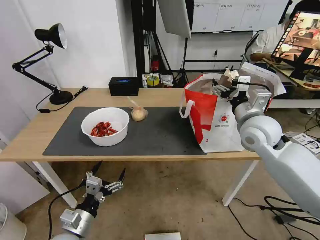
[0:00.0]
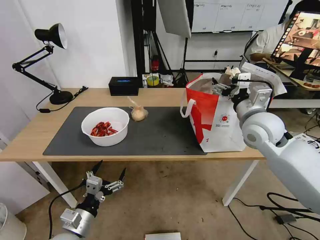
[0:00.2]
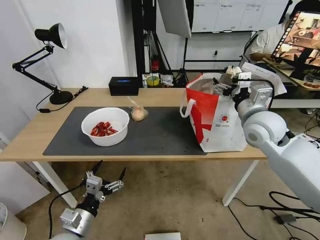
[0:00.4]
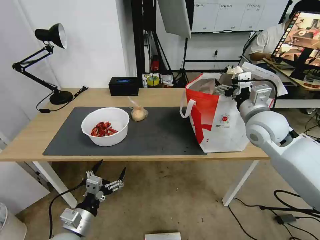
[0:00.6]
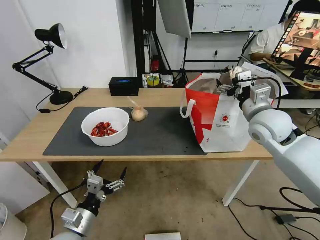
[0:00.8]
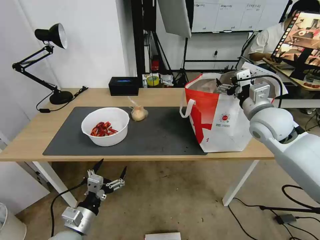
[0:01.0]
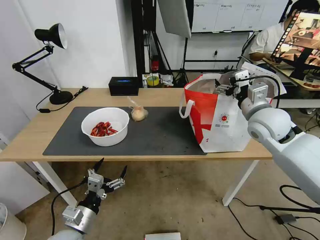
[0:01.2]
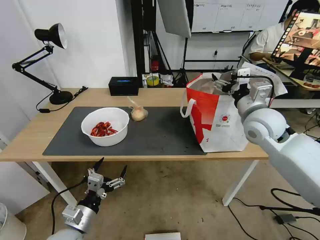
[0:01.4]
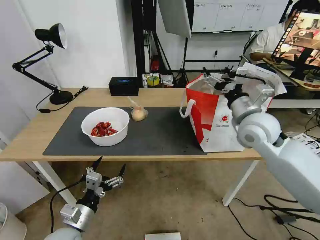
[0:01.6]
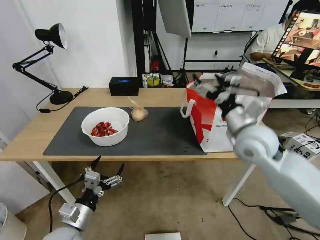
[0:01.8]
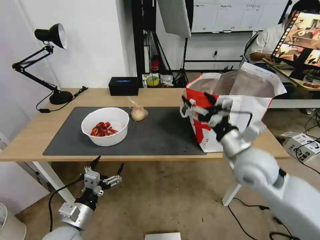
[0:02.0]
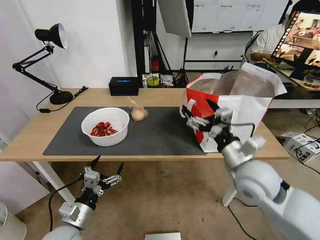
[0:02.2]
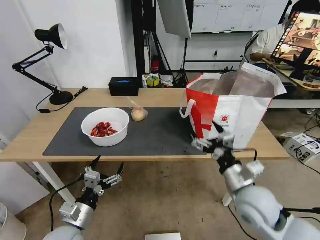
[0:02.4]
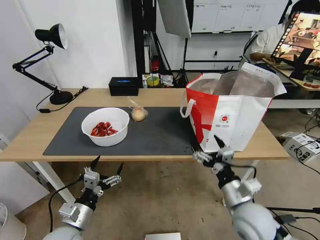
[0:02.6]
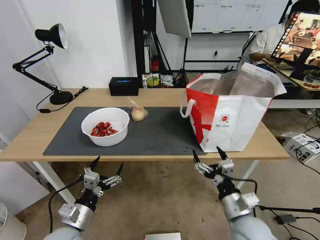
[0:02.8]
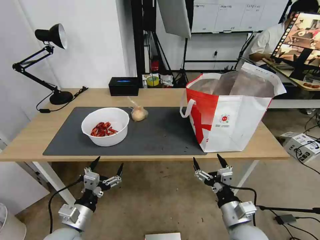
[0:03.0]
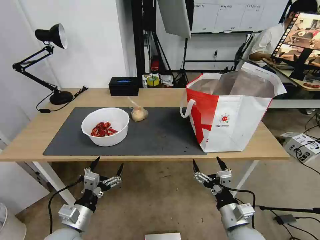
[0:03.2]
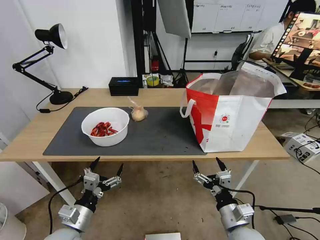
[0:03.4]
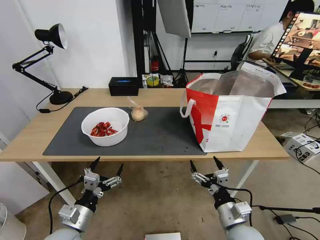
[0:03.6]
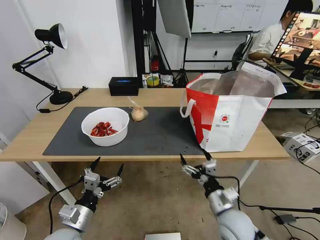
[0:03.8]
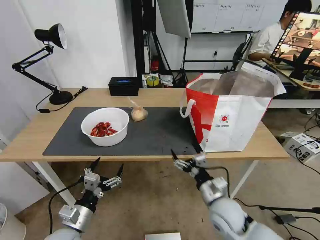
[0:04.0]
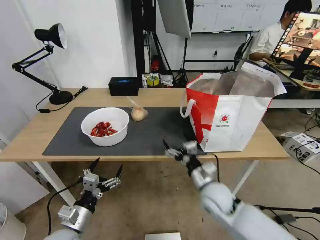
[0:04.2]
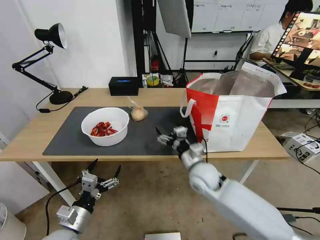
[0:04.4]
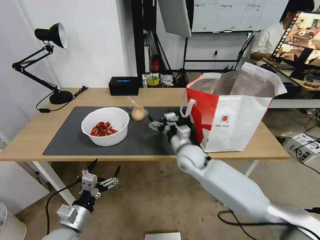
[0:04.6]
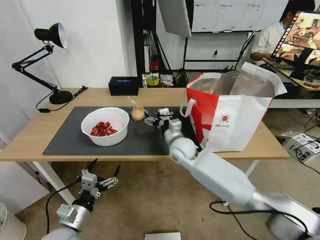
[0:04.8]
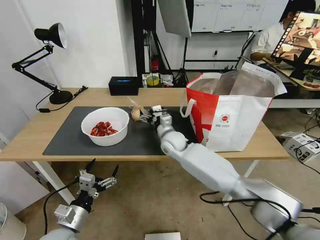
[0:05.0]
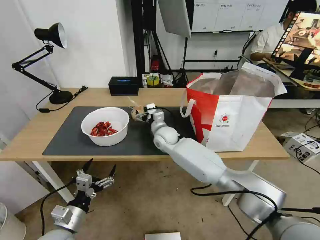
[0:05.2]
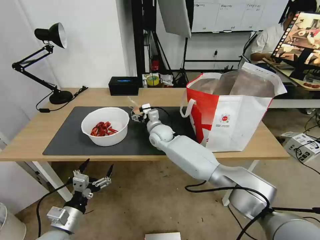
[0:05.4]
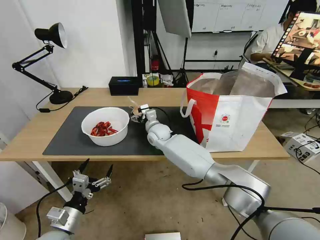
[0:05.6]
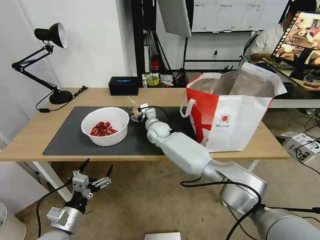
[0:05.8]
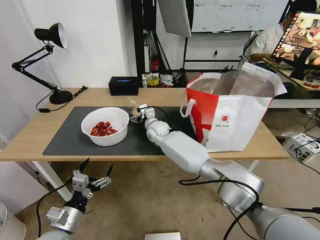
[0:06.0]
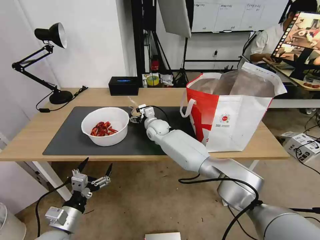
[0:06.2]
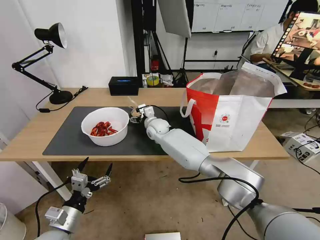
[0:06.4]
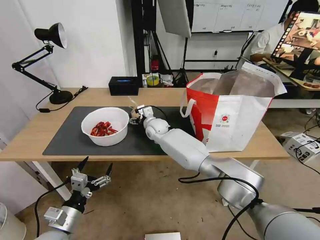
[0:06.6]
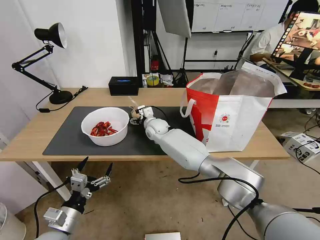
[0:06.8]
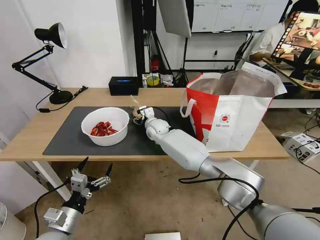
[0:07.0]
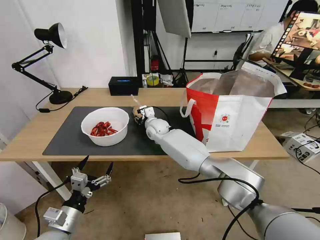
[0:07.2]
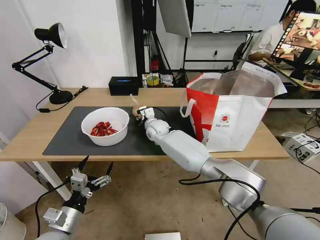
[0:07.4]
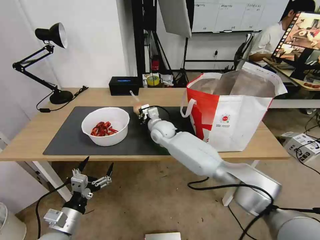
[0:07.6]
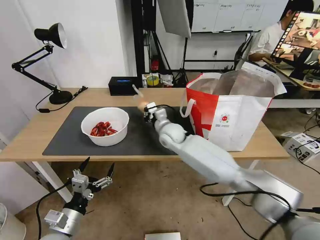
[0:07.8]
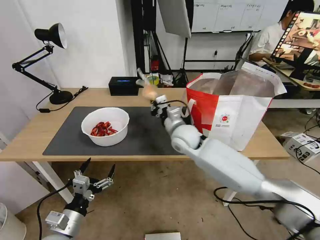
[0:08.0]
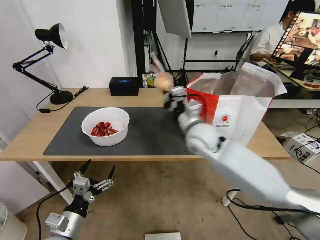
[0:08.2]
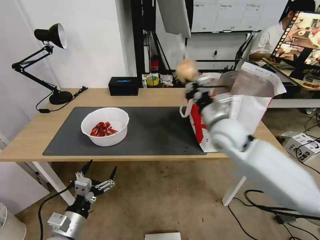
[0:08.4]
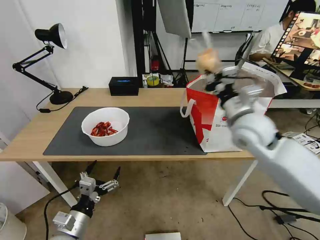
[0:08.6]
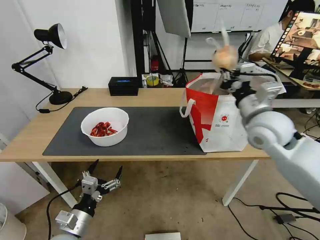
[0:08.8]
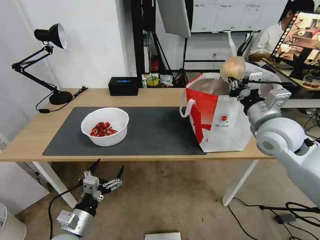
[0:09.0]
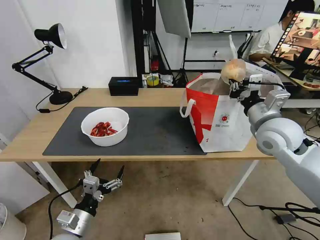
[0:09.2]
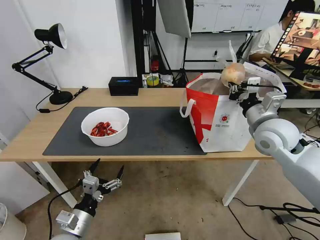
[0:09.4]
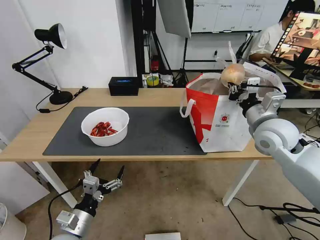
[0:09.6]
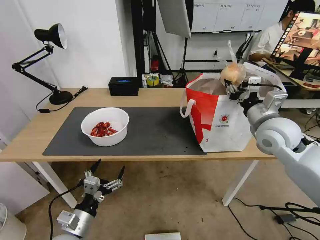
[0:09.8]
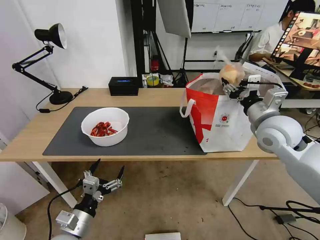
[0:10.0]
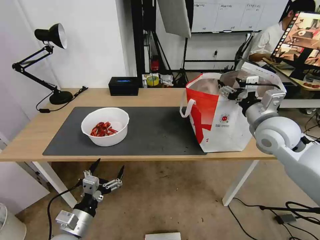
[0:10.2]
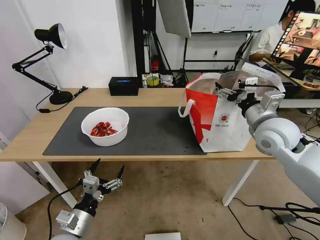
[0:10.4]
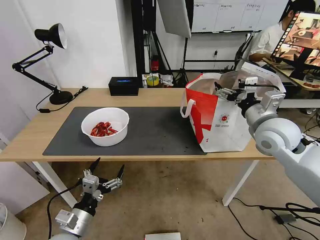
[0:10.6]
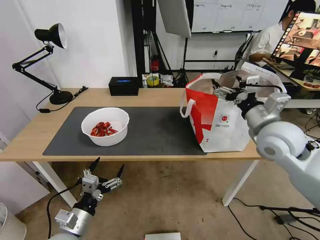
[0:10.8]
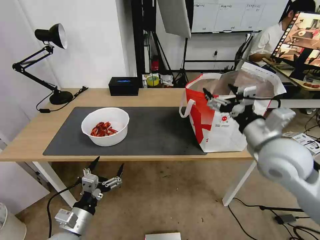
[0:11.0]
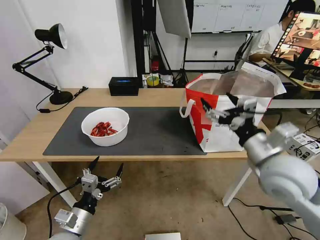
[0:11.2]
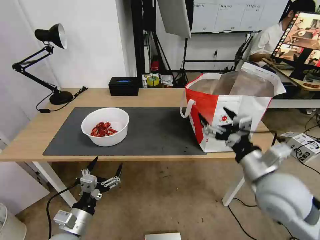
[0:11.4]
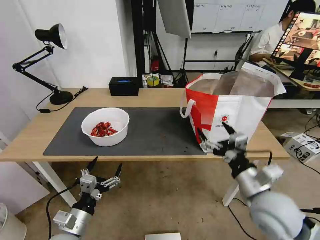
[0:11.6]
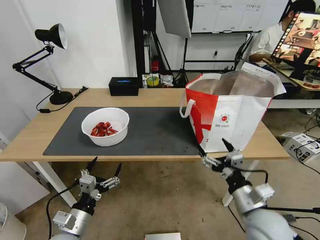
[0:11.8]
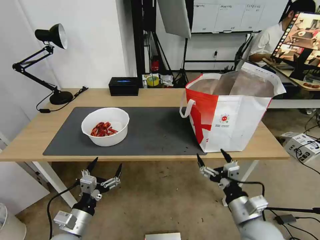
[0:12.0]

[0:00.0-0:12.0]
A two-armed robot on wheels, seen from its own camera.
Task of the whole recording: Pick up the trash from the table and place it into the takeout bag.
0:01.6 to 0:03.0: The right gripper heads backward and downward, covering approximately 30 cm.
0:03.0 to 0:04.4: The right gripper heads forward and to the left, covering approximately 20 cm.
0:04.4 to 0:06.0: The right gripper heads forward and to the left, covering approximately 25 cm.
0:06.0 to 0:07.6: The right gripper closes its fingers.
0:07.6 to 0:09.0: The right gripper heads to the right, backward and upward, covering some 35 cm.
0:09.0 to 0:10.4: The right gripper opens.
0:10.4 to 0:12.0: The right gripper moves backward and downward, approximately 25 cm.

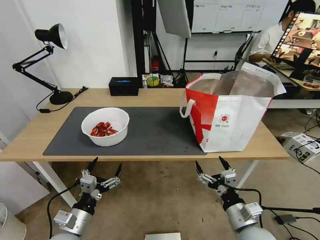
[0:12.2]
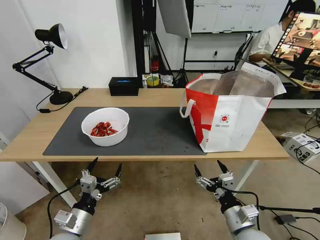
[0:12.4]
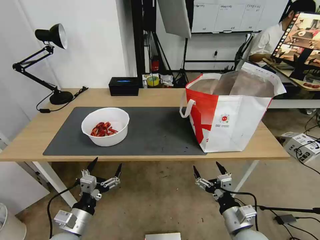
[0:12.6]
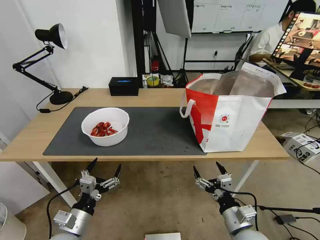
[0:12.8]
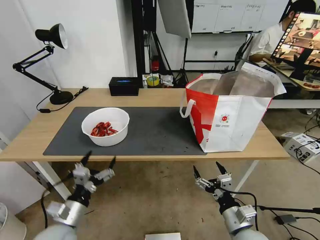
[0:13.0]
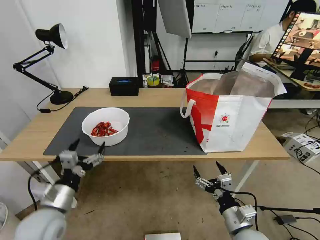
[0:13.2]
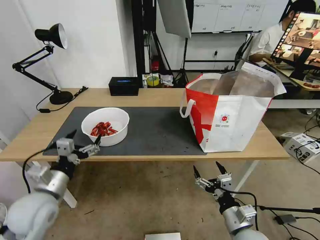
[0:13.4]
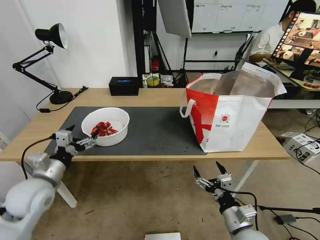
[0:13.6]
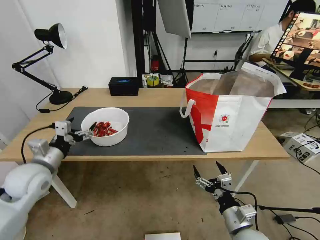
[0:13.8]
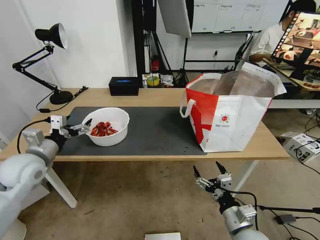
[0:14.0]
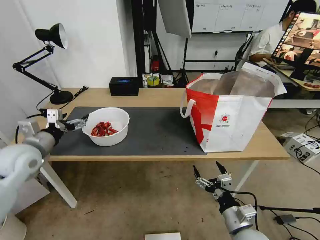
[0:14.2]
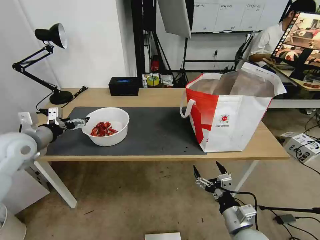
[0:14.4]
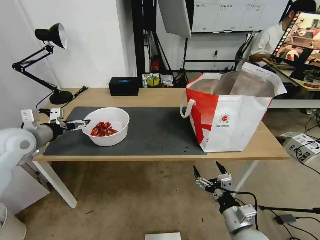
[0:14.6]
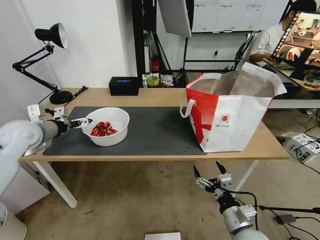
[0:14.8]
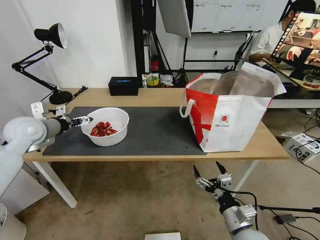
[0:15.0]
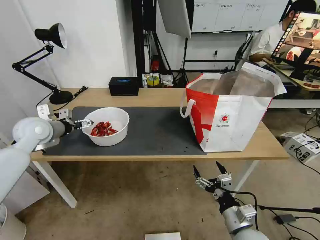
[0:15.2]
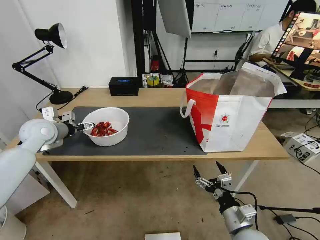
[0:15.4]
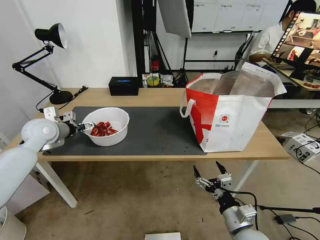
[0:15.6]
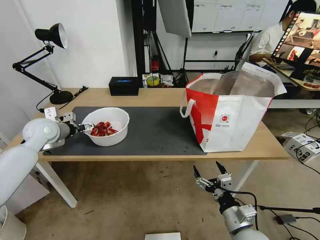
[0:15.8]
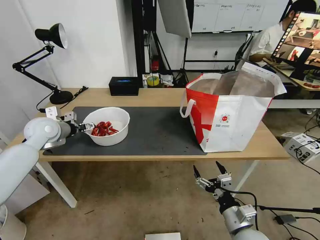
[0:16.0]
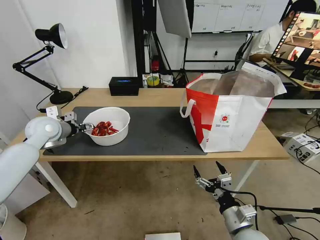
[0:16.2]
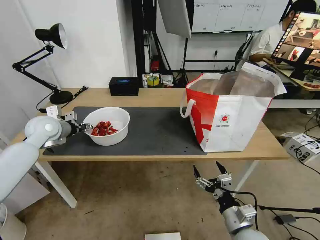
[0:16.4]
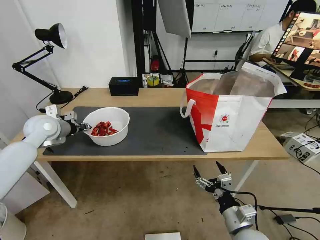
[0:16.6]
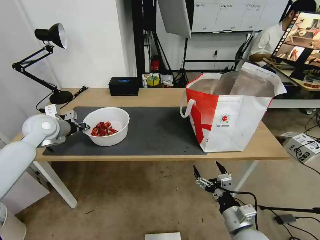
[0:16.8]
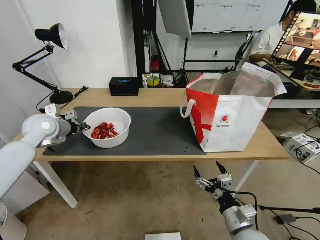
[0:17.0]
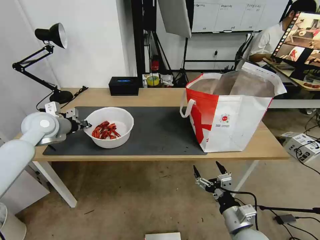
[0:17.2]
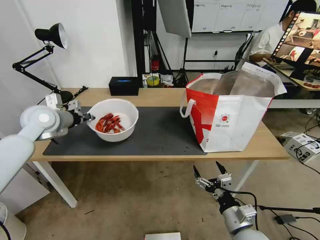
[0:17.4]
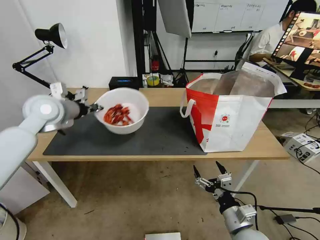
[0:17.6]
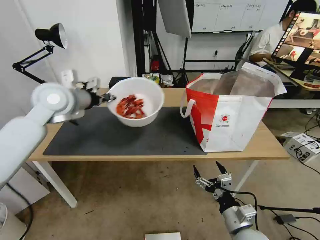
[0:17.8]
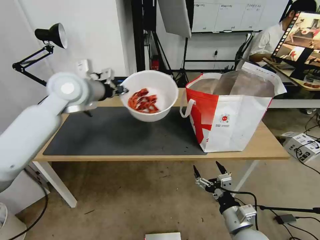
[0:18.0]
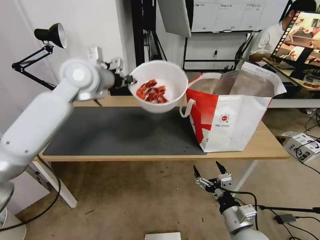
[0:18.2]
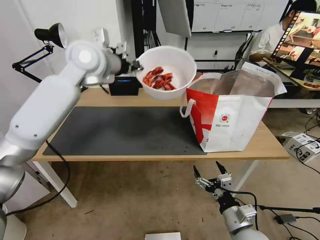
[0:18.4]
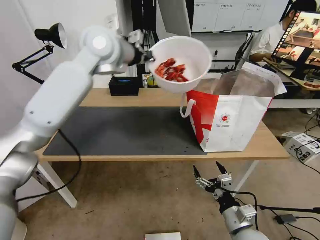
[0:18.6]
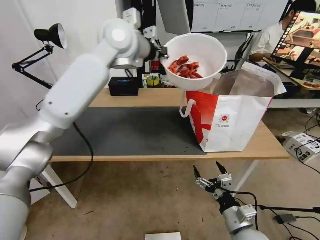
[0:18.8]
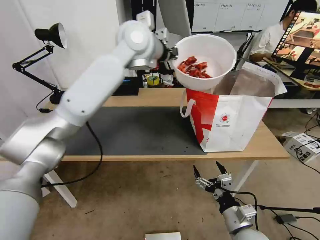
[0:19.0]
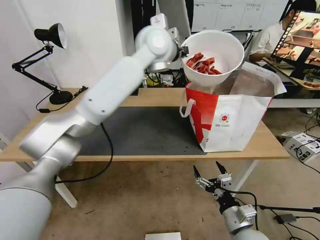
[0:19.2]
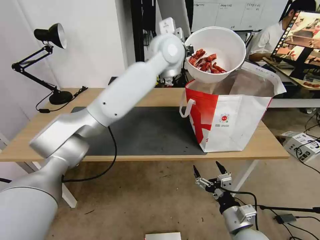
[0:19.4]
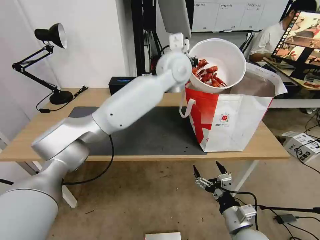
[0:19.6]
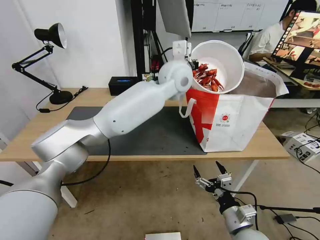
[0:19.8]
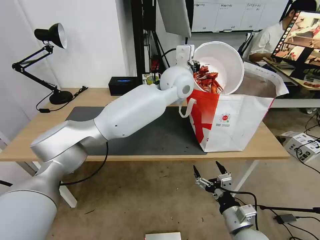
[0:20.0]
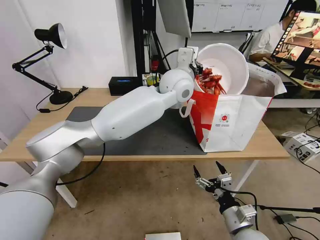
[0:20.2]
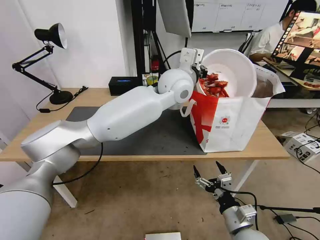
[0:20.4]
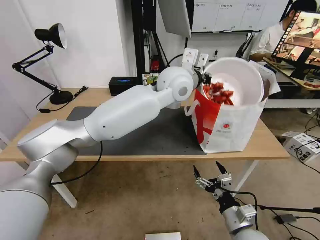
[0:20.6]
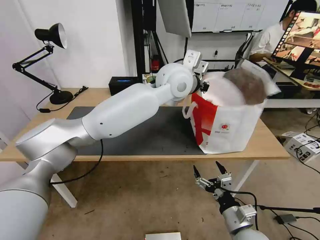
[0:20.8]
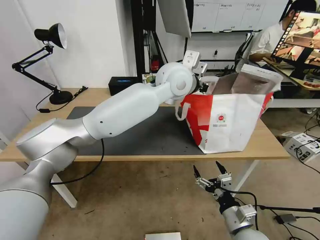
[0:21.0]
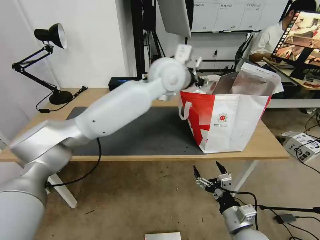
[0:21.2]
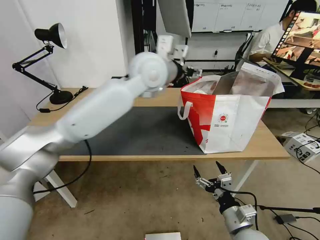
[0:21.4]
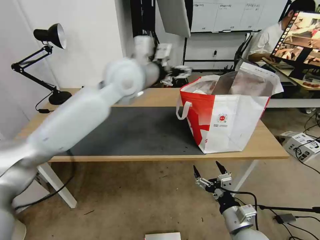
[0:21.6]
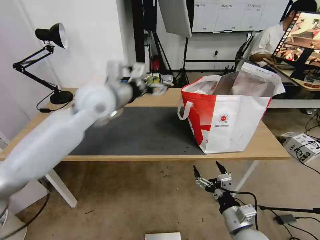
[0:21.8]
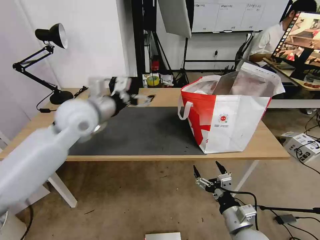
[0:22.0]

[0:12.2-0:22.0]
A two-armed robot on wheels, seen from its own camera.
Task of the whole recording: Pick up the trash from the table and place it into the takeout bag.
0:12.2 to 0:13.6: The left gripper shifts about 20 cm forward, upward and to the left.
0:13.6 to 0:15.0: The left gripper goes approximately 15 cm forward and upward.
0:15.0 to 0:16.4: The left gripper closes up.
0:16.4 to 0:17.8: The left gripper travels upward and to the right by about 15 cm, and closes up.
0:17.8 to 0:19.2: The left gripper moves to the right, about 25 cm.
0:19.2 to 0:20.6: The left gripper shifts about 10 cm downward, backward and to the right.
0:20.6 to 0:22.0: The left gripper is displaced to the left by roughly 25 cm, and opens up.
